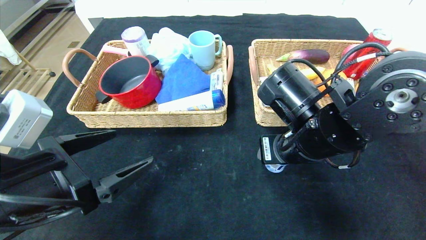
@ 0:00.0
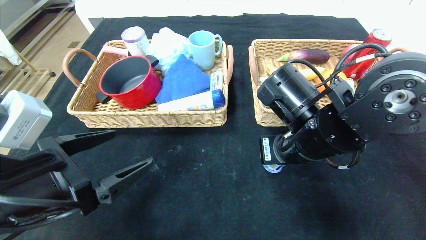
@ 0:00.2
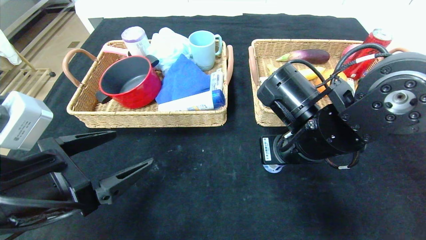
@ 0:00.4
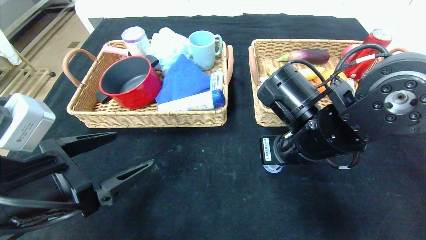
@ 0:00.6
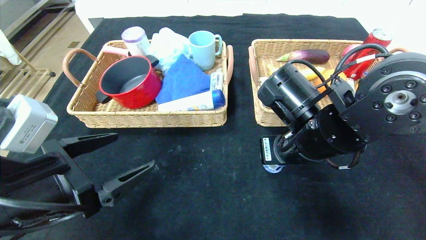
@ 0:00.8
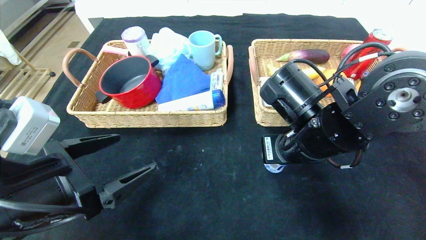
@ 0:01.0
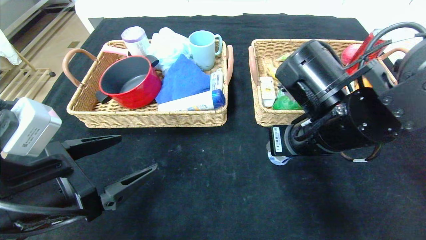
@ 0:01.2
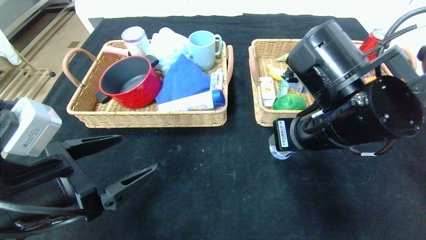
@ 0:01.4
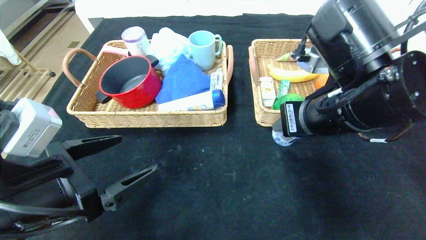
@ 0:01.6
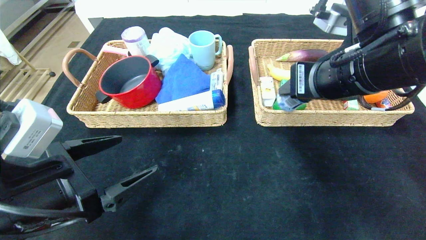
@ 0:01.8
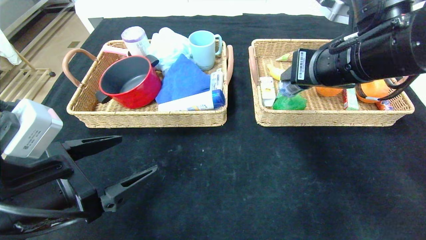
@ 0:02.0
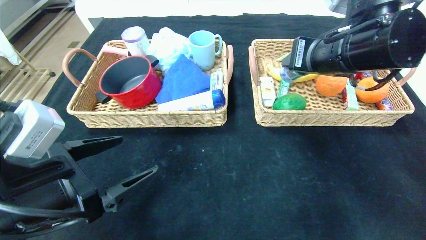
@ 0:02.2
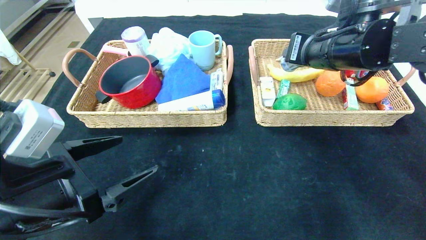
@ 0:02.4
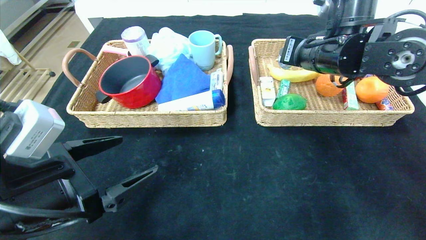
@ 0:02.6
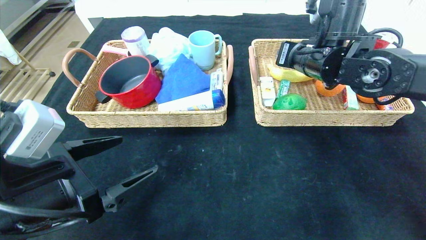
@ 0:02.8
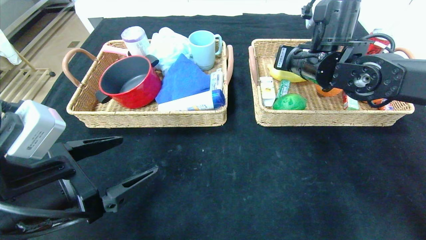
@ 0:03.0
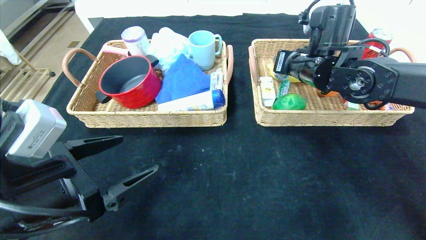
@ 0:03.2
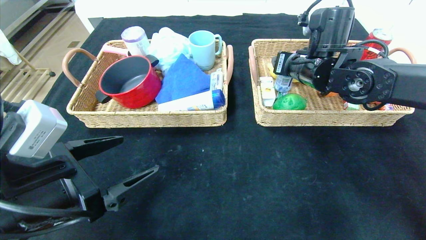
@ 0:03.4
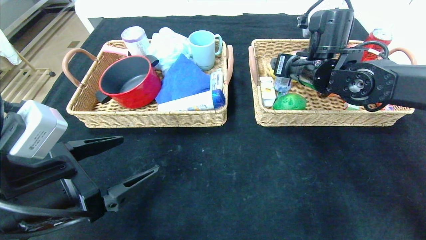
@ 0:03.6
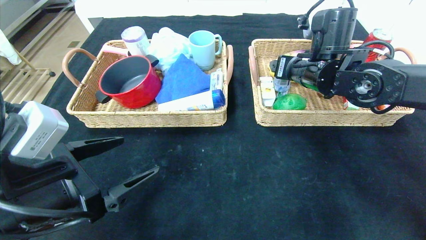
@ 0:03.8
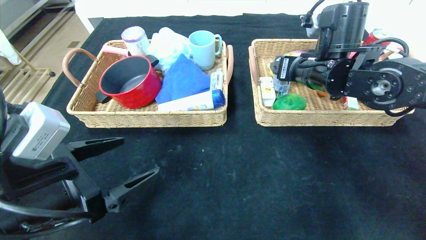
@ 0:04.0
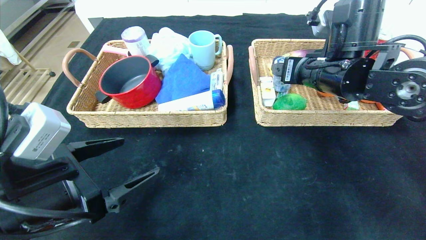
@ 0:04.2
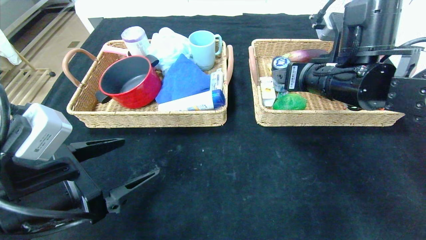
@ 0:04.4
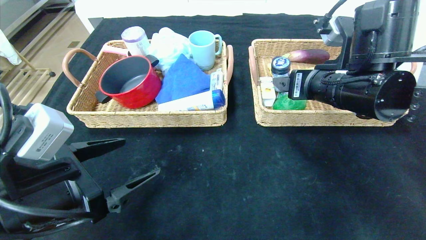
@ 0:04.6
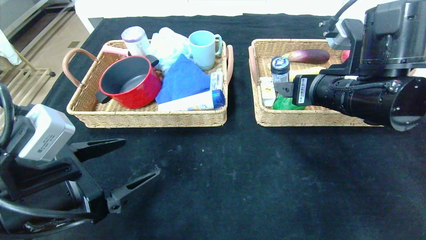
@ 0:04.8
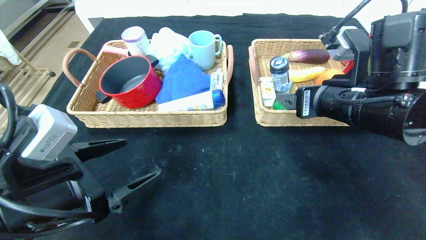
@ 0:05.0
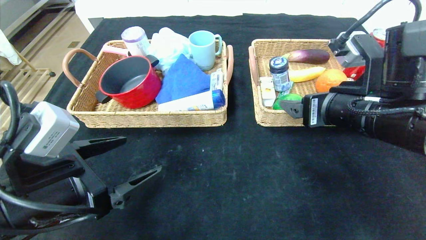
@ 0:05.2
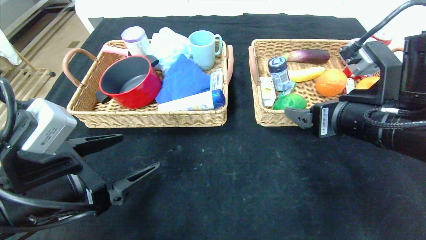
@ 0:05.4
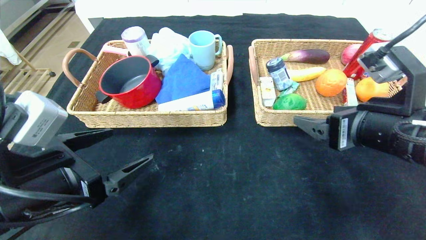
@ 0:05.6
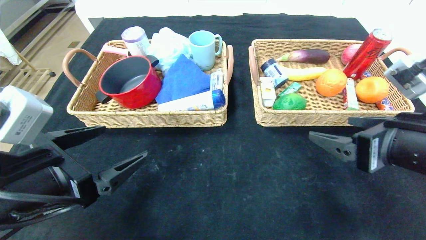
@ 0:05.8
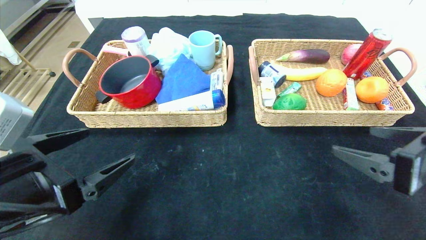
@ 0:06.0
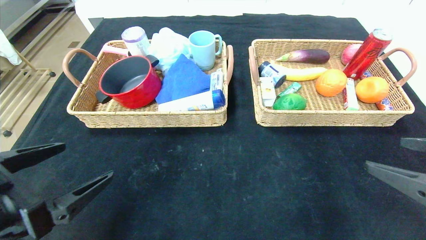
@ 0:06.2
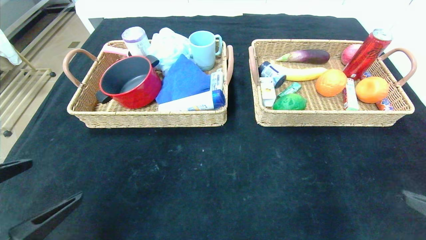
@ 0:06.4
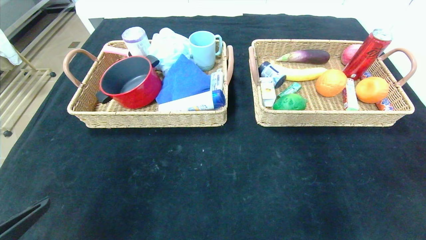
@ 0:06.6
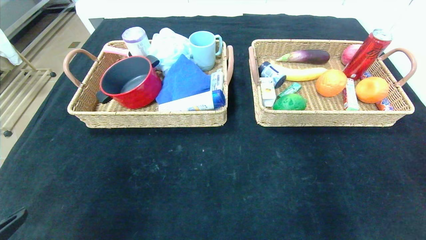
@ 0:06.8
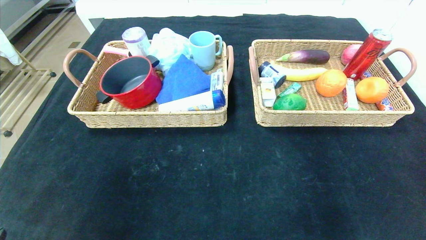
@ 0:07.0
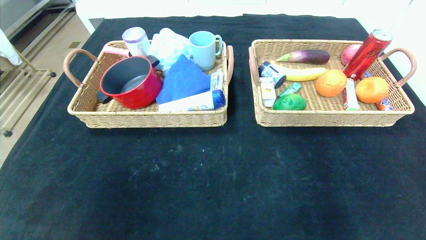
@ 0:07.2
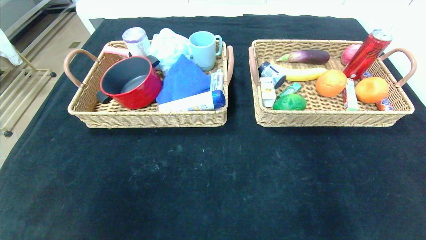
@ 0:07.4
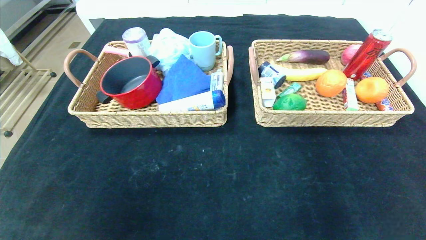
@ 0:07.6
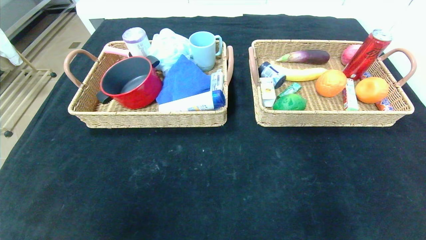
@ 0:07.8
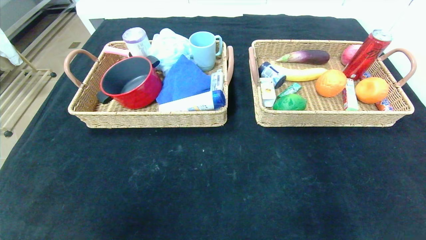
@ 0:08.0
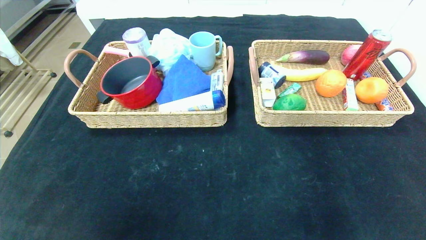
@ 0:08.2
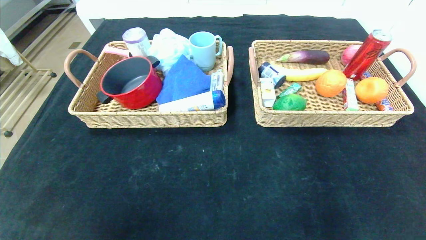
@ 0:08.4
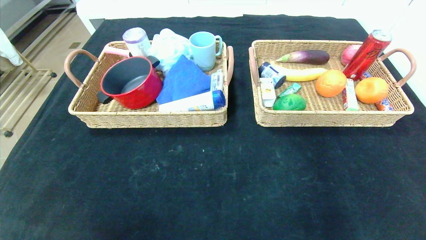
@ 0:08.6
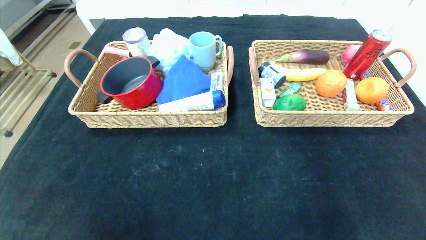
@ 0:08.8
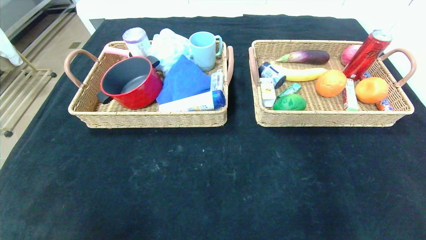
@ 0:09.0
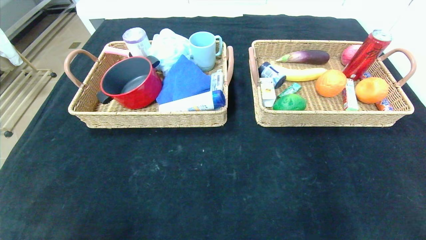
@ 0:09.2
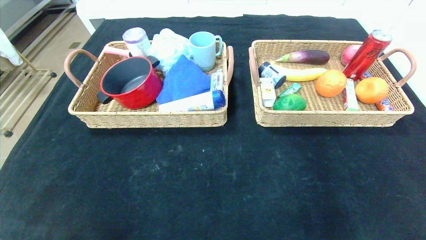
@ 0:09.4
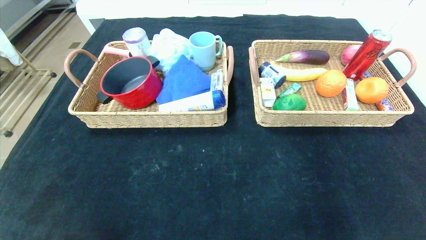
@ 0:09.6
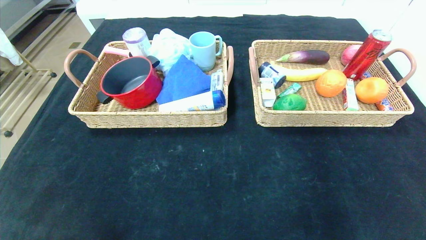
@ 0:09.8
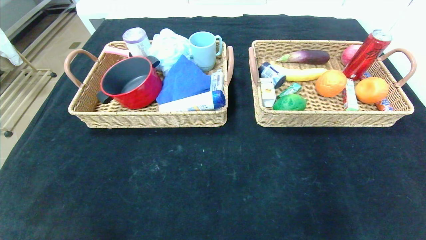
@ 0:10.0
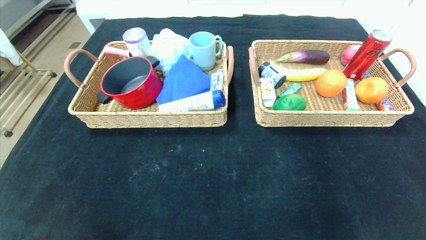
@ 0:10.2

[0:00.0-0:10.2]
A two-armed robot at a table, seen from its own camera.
Step, 0:00.0 to 0:06.0: Pick up the round chewing gum and put it in the right basket.
0:00.0 to 0:01.4: The right gripper shifts by approximately 5 cm.
0:01.4 to 0:03.0: The right gripper moves forward, about 15 cm.
0:03.0 to 0:04.4: The right gripper heads backward, covering some 10 cm, and opens.
0:04.4 to 0:05.8: The right gripper goes about 15 cm backward and to the right.
0:05.8 to 0:07.2: The right gripper travels backward and to the right by some 25 cm; the left gripper heads backward, covering roughly 15 cm.
0:07.2 to 0:08.8: The grippers both shift downward by about 10 cm.
